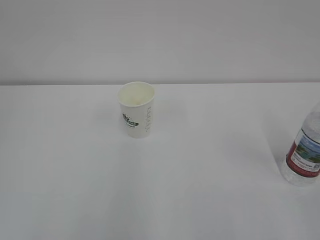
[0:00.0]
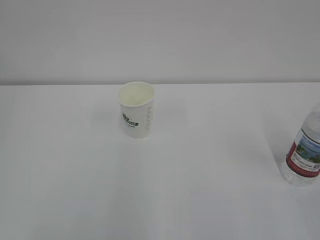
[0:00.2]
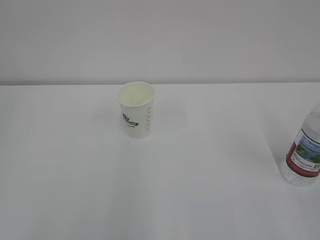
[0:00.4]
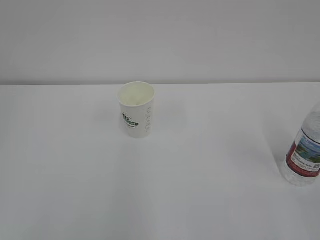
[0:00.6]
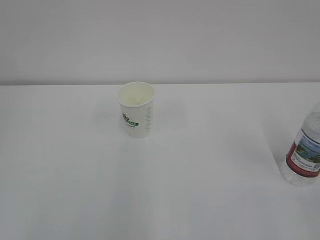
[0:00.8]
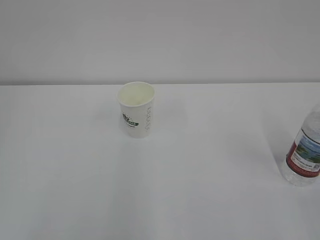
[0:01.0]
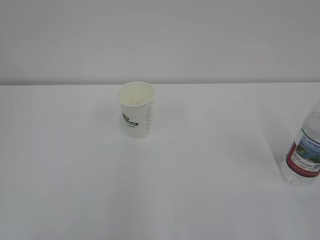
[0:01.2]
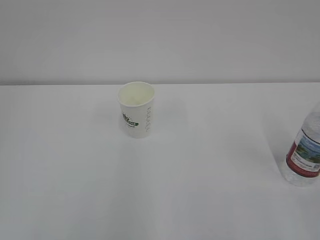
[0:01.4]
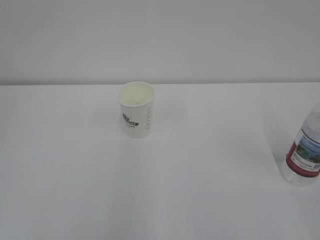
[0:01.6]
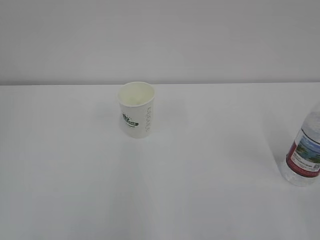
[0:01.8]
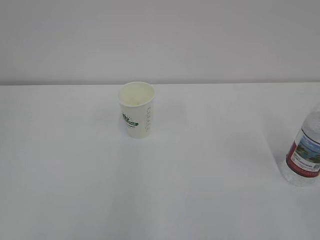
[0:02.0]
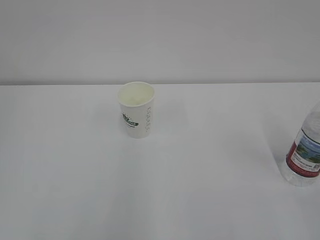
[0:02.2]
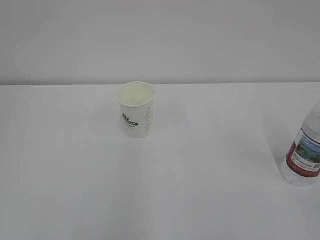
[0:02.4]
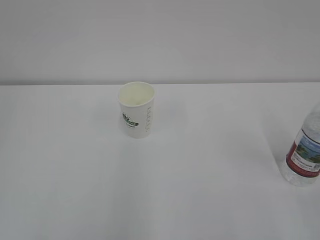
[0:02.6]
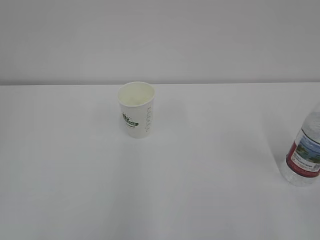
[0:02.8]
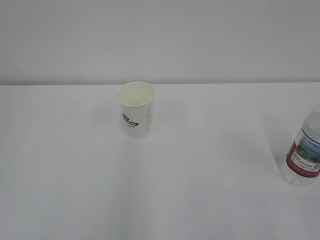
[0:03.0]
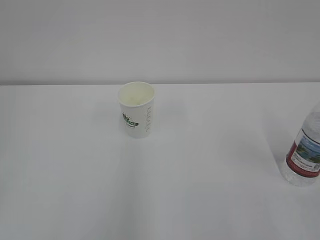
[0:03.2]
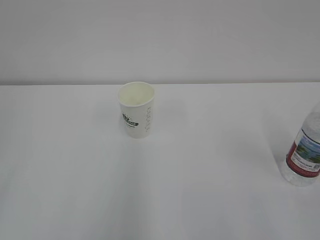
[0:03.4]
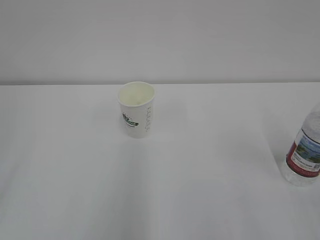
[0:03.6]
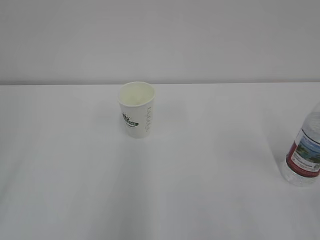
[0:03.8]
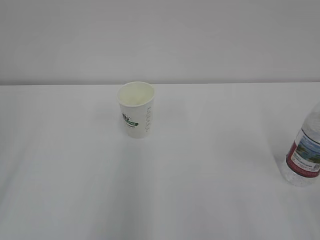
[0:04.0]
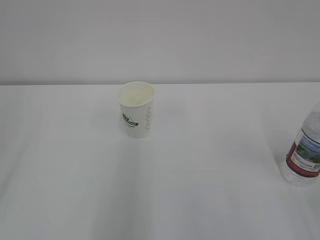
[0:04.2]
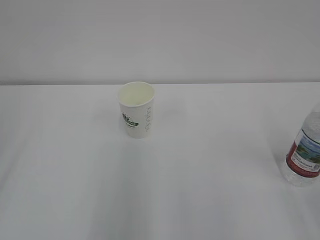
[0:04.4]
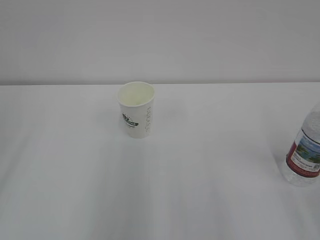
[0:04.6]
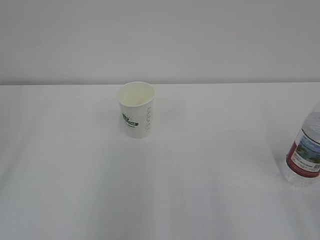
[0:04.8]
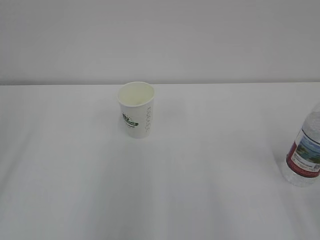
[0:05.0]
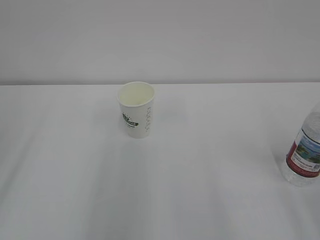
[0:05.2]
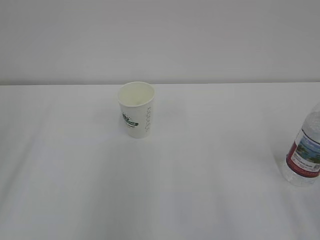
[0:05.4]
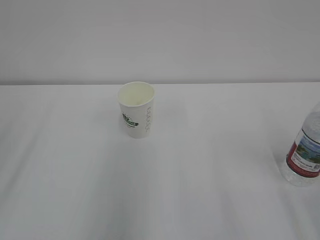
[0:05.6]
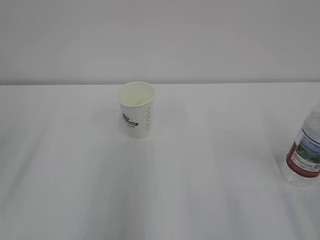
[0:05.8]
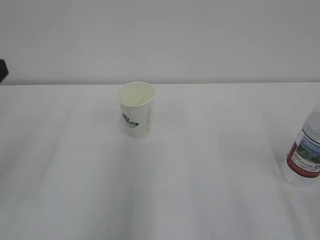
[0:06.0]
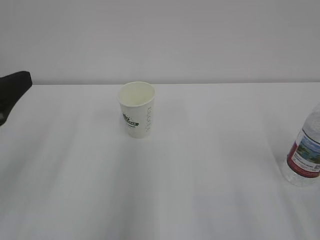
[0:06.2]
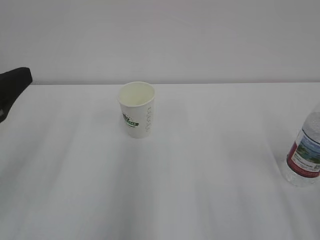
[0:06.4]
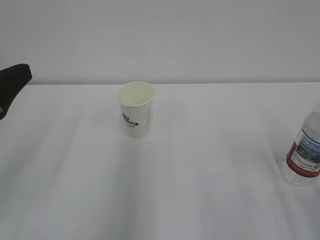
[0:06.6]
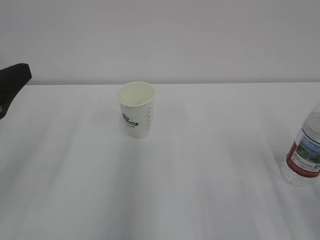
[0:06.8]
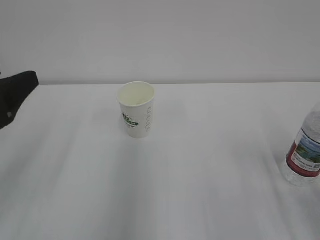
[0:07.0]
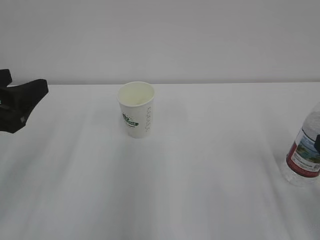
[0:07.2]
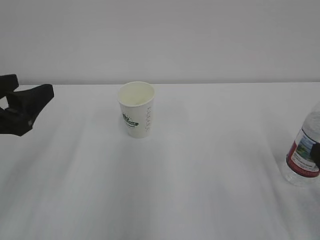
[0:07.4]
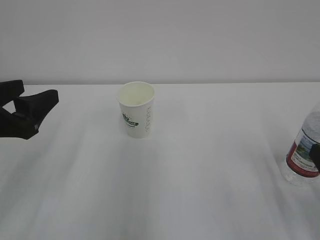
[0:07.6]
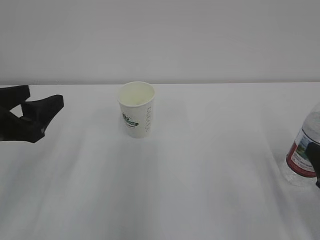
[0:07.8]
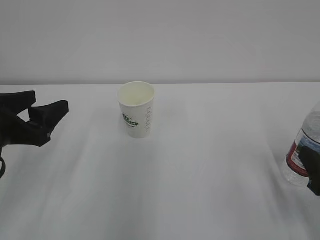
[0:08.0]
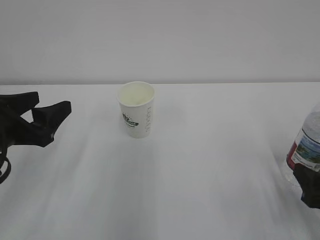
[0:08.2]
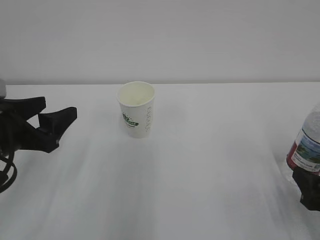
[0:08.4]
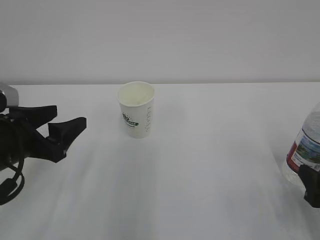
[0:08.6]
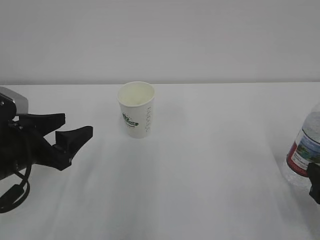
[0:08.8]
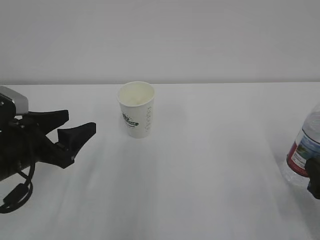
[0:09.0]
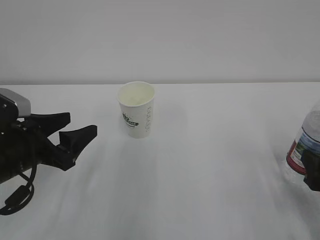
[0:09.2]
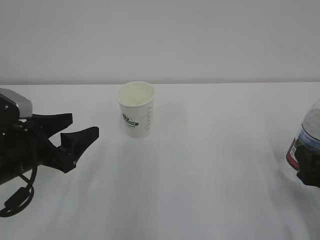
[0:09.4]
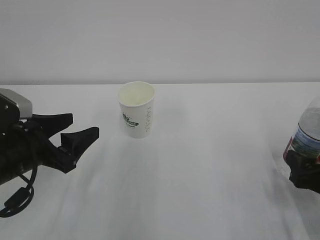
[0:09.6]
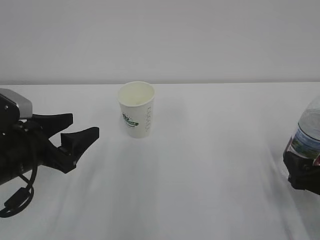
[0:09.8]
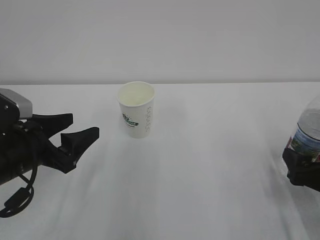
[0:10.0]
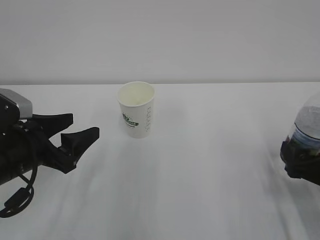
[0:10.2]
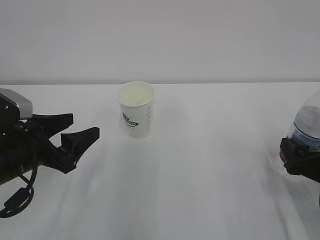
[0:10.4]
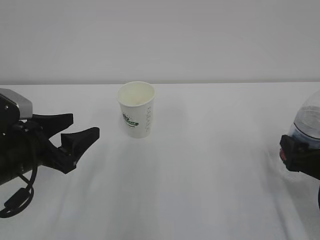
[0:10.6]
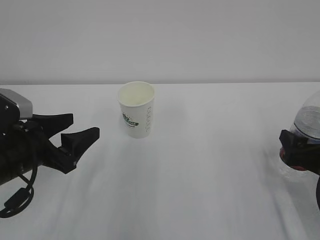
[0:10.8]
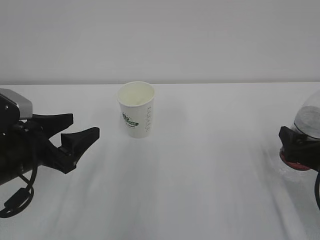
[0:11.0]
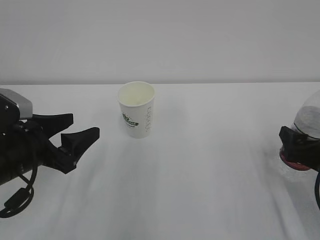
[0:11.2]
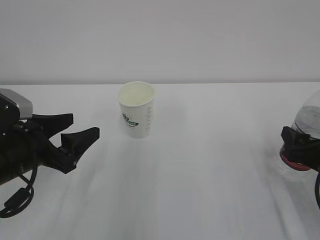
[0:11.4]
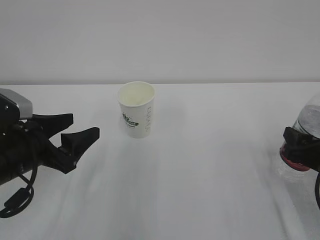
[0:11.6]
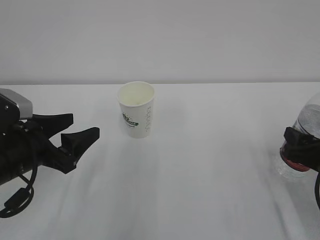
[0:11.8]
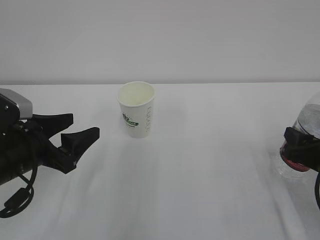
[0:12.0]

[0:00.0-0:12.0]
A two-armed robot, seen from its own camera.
0:01.6 to 0:03.0: Both grippers stay about where they are.
0:06.0 to 0:07.6: The left gripper travels downward by roughly 5 cm.
0:07.6 to 0:09.0: Both grippers travel together downward, some 5 cm.
0:09.0 to 0:10.4: The right gripper shifts roughly 5 cm forward, and opens.
0:10.4 to 0:12.0: The right gripper closes.

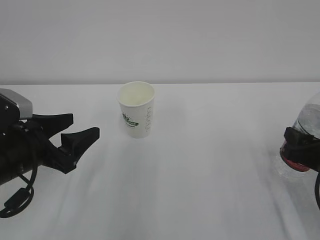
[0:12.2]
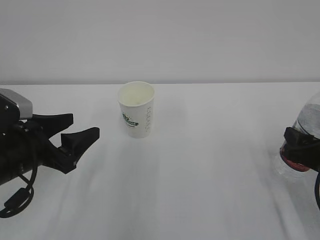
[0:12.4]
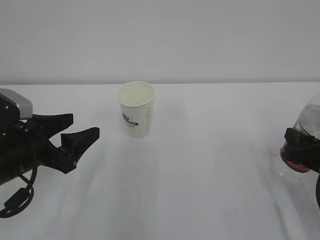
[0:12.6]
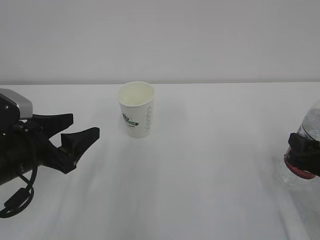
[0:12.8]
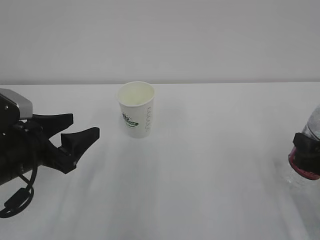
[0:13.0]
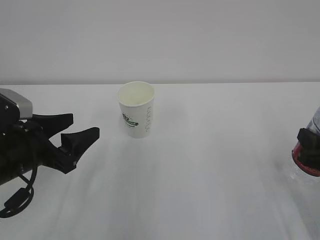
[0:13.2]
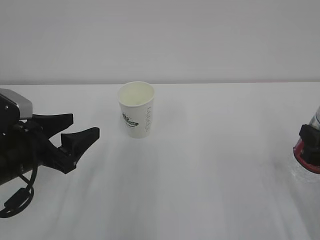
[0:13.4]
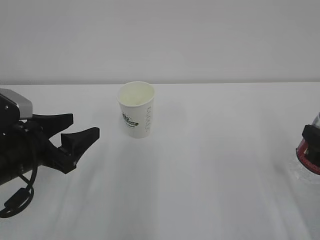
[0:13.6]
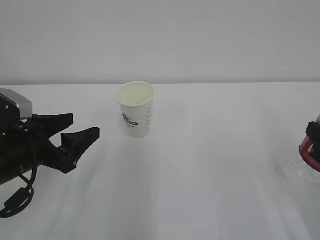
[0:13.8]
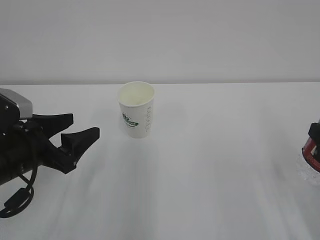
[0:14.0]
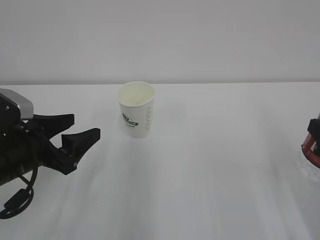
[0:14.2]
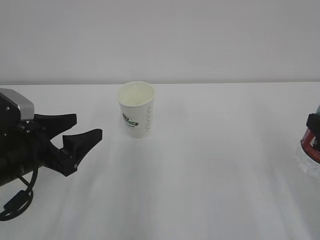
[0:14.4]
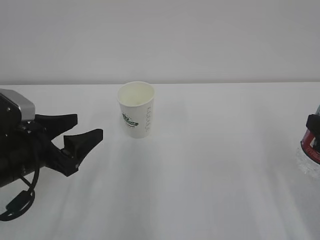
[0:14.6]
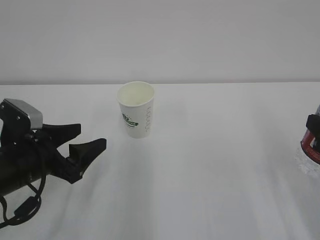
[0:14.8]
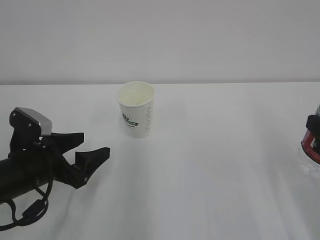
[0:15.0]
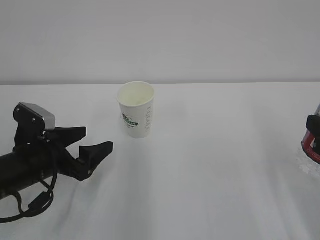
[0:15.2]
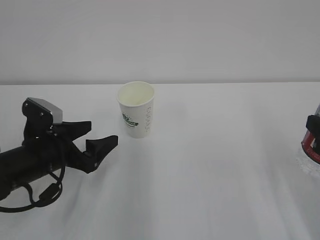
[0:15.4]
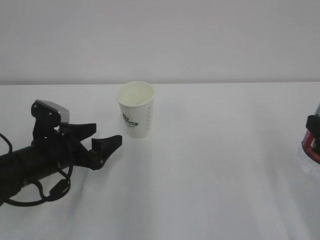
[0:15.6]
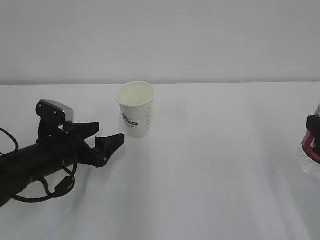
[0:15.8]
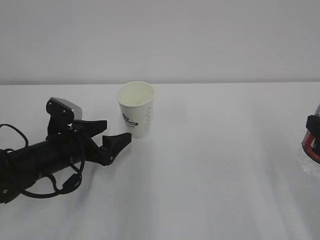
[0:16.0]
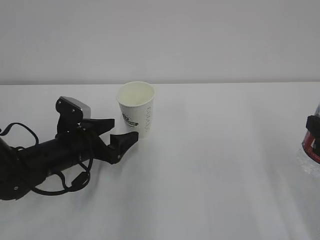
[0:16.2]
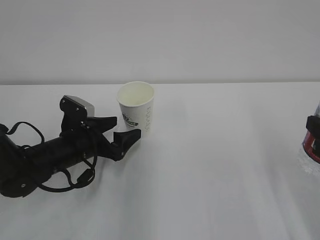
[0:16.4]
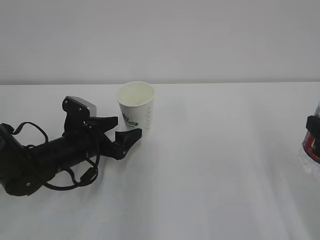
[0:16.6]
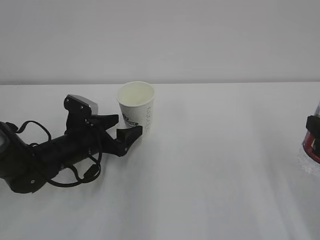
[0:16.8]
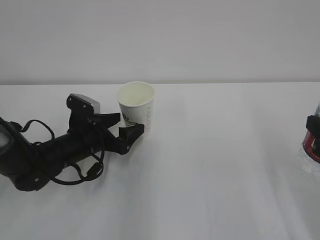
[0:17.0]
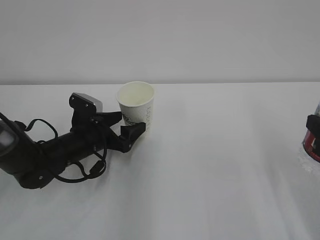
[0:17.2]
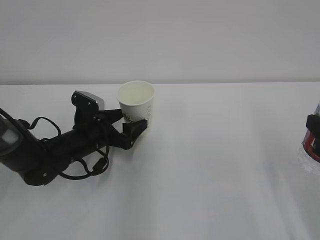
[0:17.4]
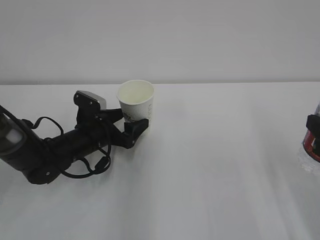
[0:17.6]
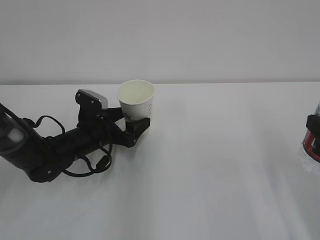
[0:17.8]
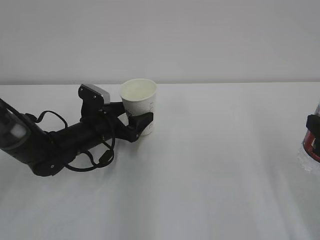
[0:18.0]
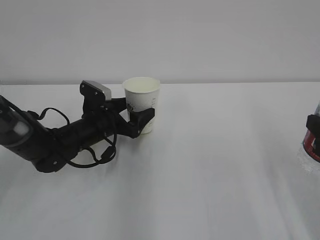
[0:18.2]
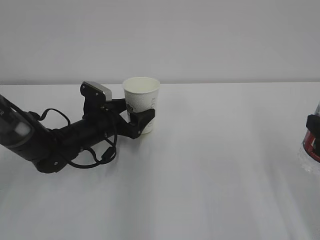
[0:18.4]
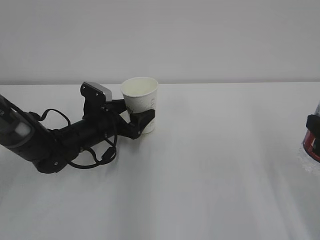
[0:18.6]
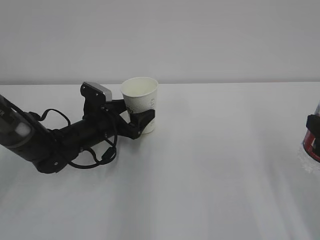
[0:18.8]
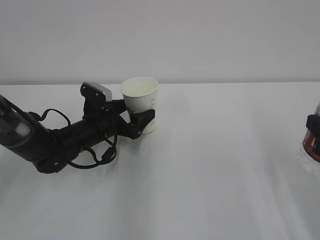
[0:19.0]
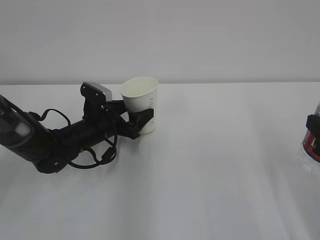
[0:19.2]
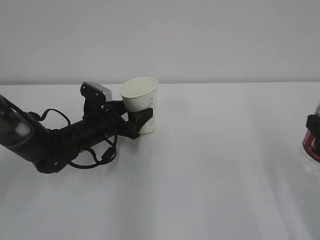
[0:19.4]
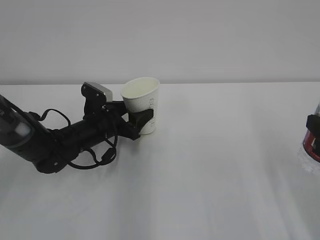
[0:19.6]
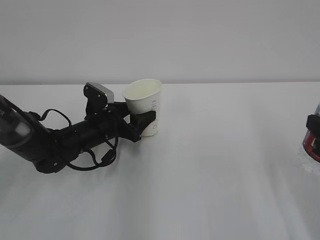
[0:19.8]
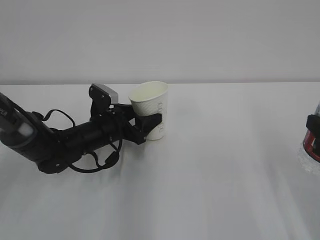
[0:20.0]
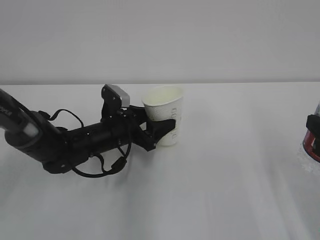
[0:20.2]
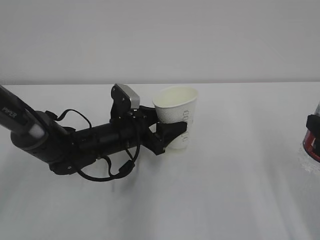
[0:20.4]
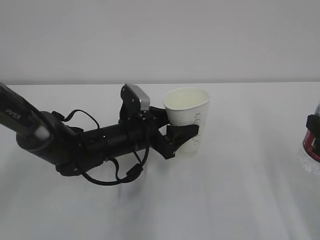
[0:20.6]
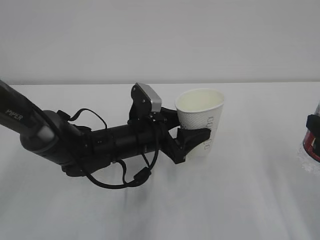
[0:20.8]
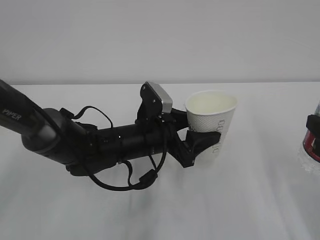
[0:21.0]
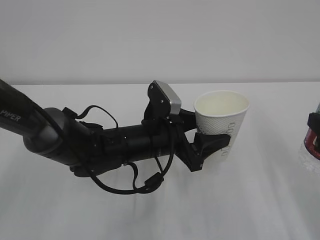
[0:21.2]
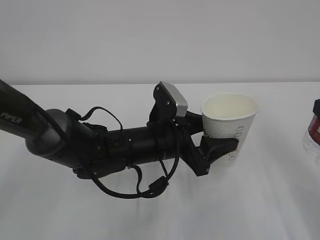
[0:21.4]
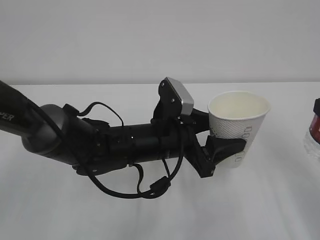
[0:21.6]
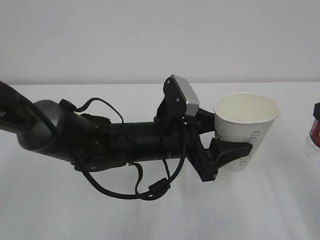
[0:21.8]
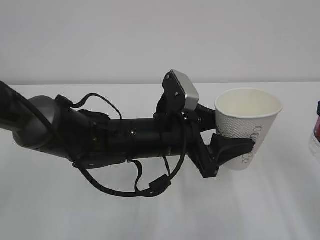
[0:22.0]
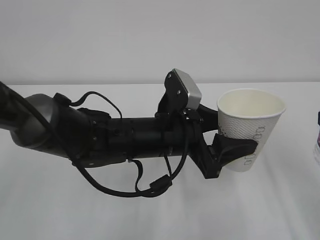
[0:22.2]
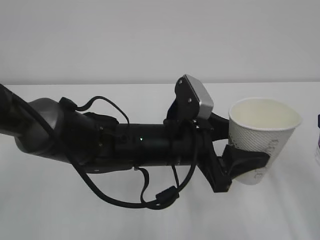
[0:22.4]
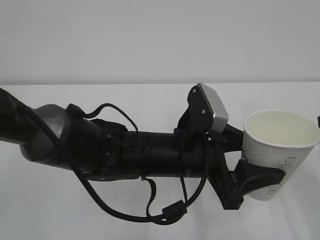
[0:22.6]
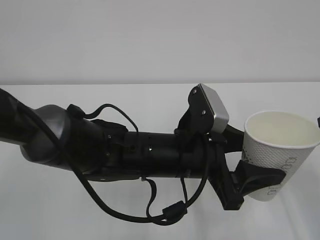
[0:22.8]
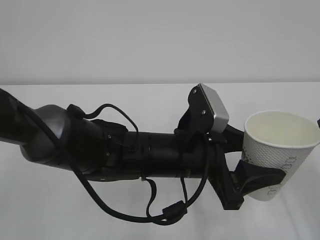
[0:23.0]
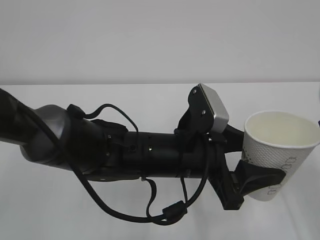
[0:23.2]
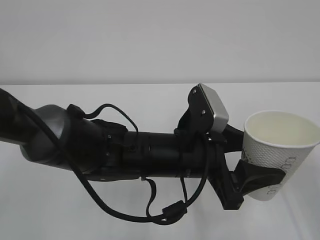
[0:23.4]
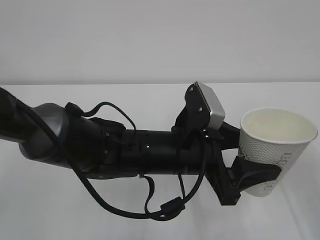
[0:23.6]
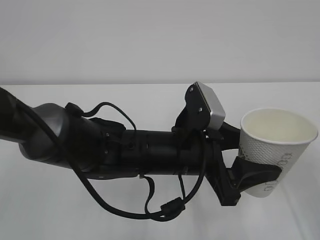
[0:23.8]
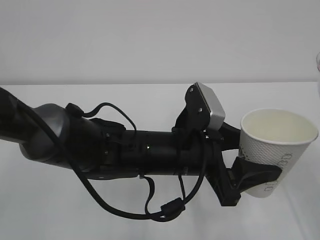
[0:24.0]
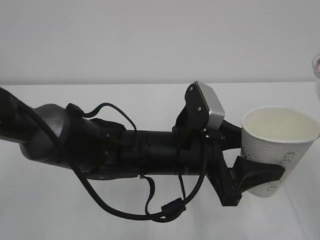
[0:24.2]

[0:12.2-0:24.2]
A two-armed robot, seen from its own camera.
0:12.2 to 0:13.8: The right gripper moves upward, some 5 cm.
0:13.8 to 0:15.2: The left gripper opens its fingers.
0:15.2 to 0:16.6: The left gripper travels forward by approximately 5 cm.
0:16.6 to 0:18.2: The left gripper heads forward, covering some 5 cm.
0:18.2 to 0:19.8: The left gripper closes up.
0:19.8 to 0:21.2: The left gripper goes roughly 15 cm to the right, backward and upward.
0:21.2 to 0:22.6: The left gripper heads backward, covering about 5 cm.
